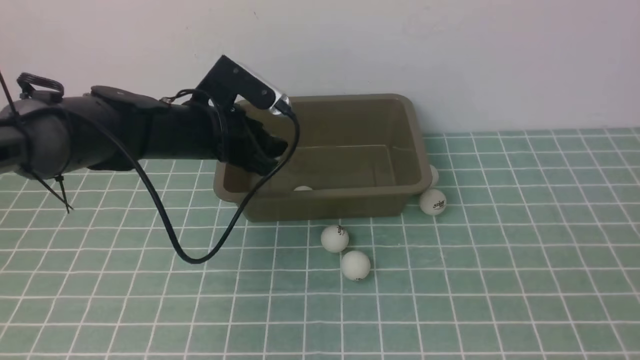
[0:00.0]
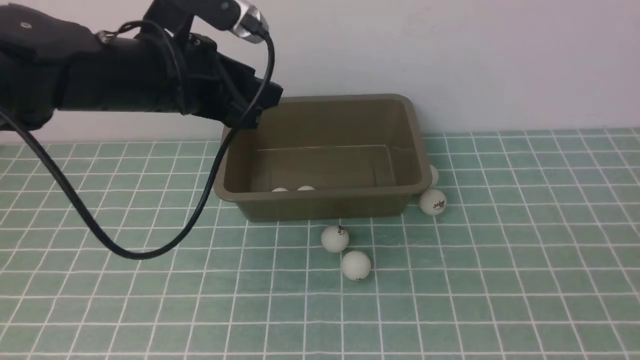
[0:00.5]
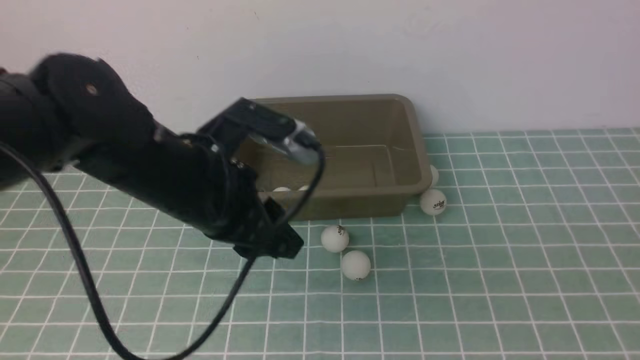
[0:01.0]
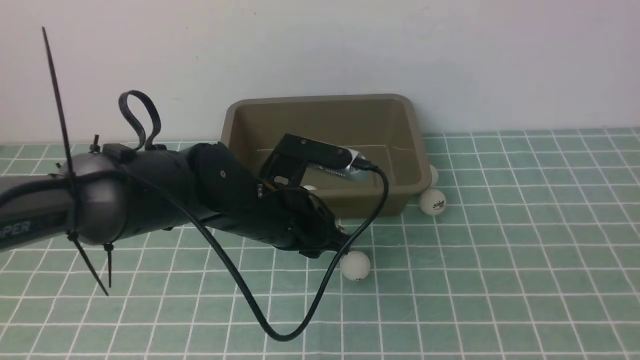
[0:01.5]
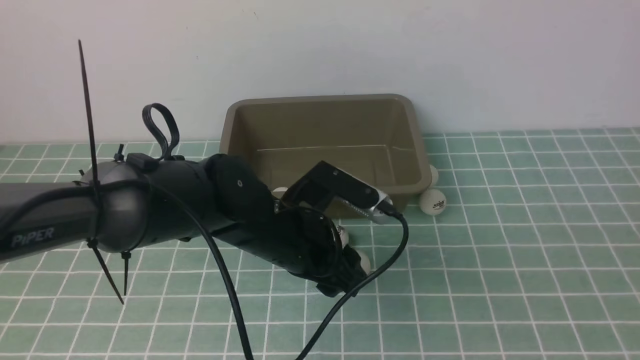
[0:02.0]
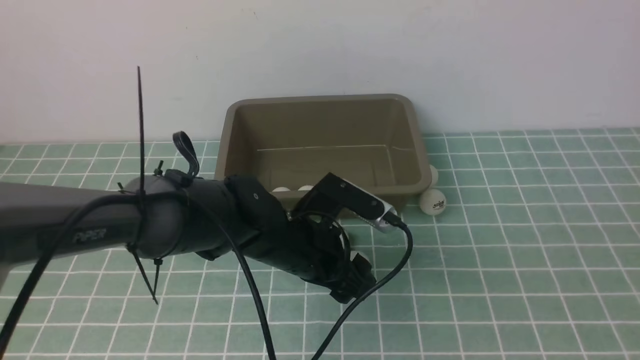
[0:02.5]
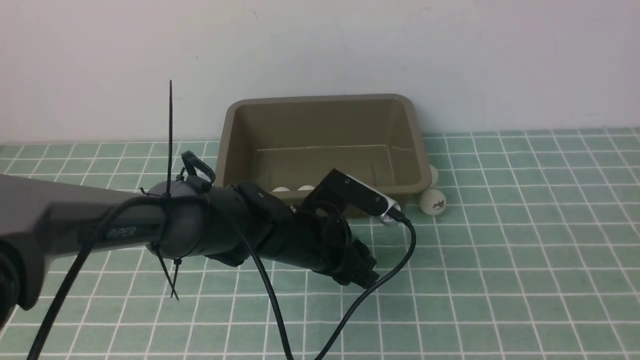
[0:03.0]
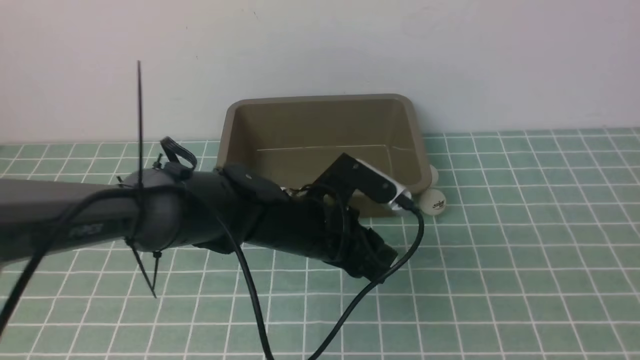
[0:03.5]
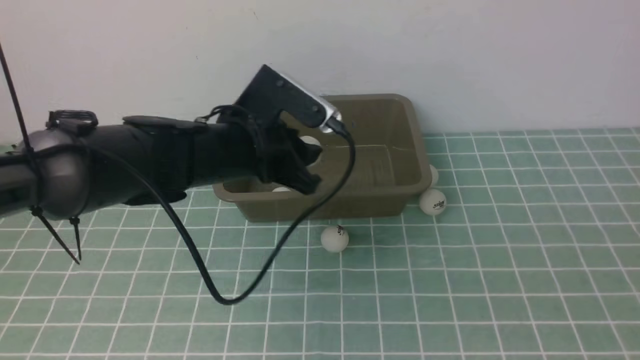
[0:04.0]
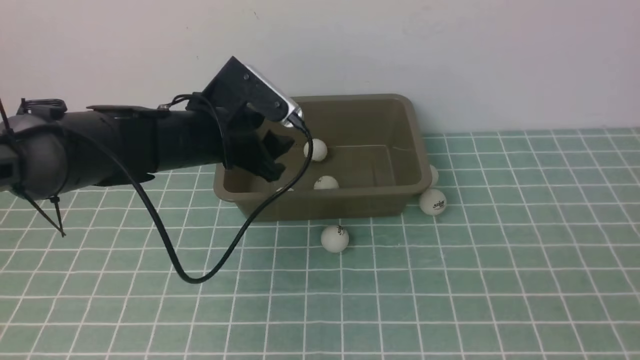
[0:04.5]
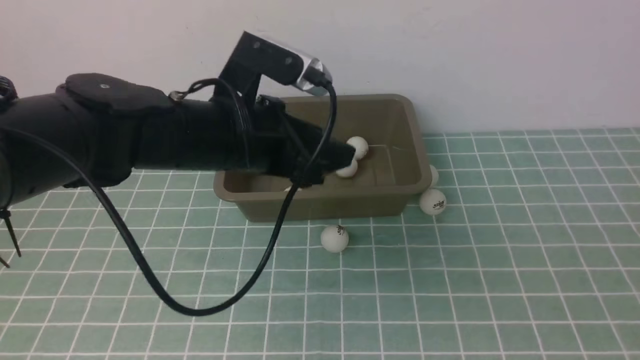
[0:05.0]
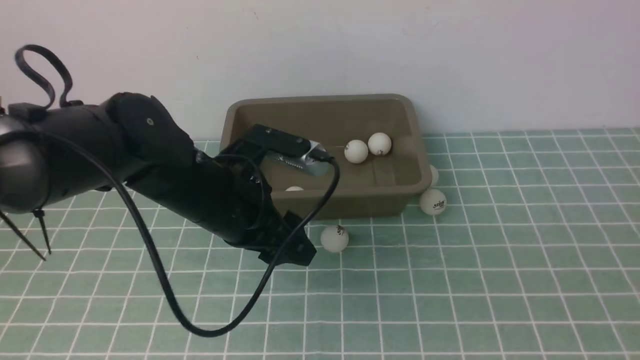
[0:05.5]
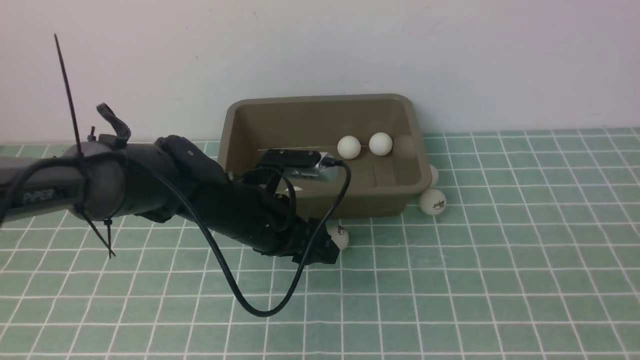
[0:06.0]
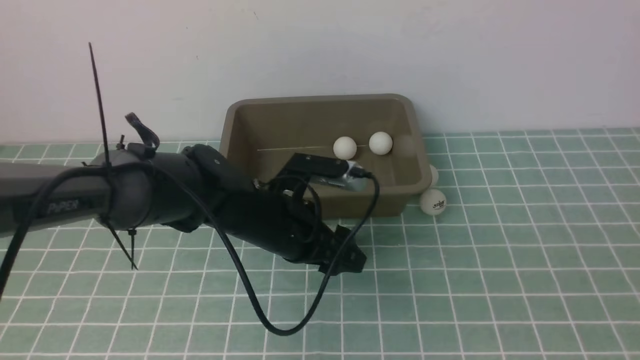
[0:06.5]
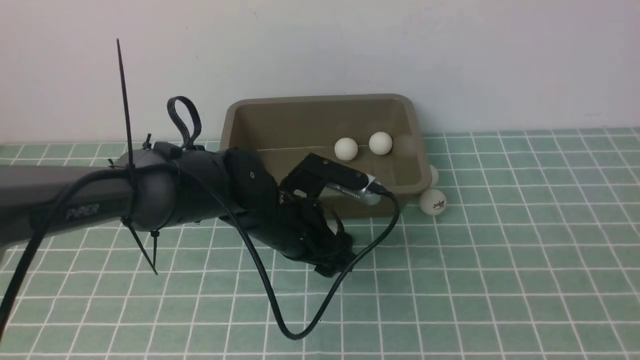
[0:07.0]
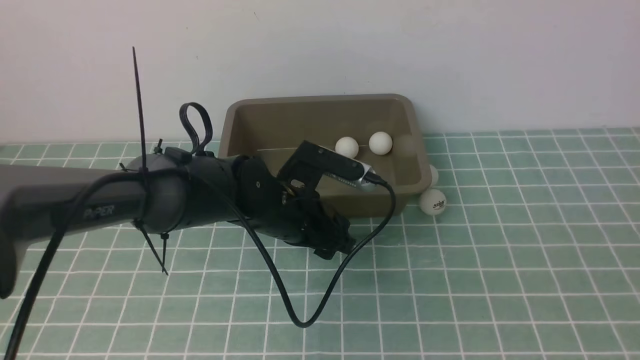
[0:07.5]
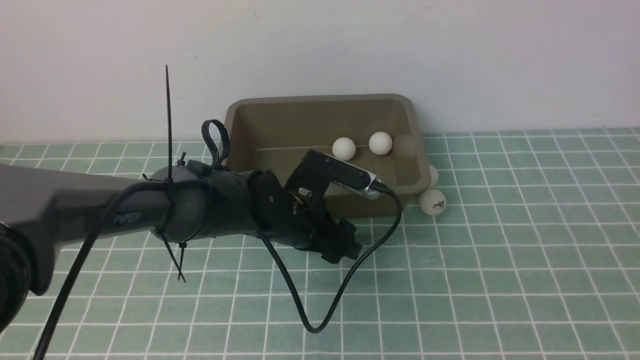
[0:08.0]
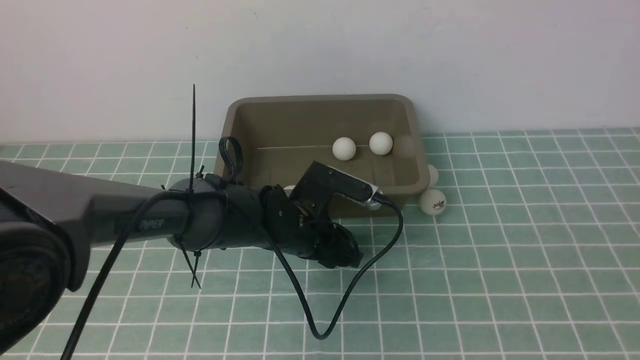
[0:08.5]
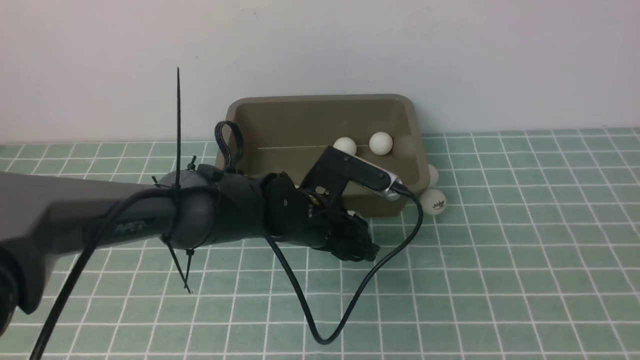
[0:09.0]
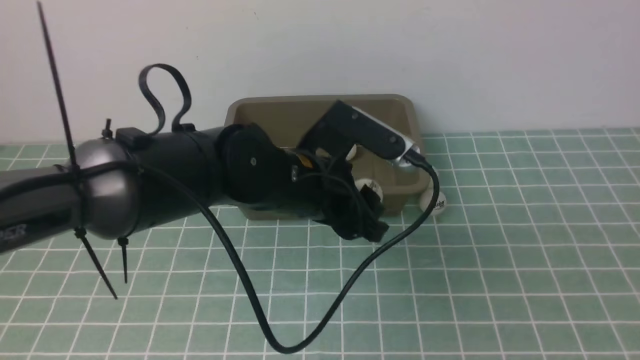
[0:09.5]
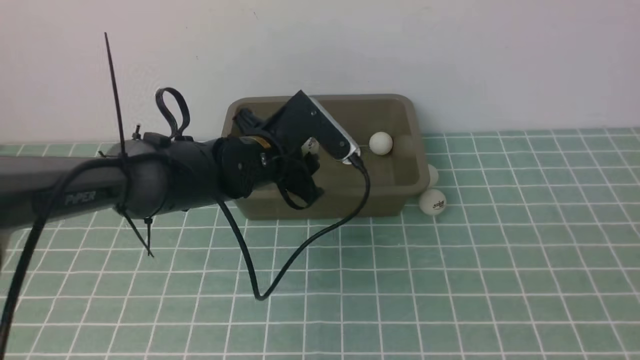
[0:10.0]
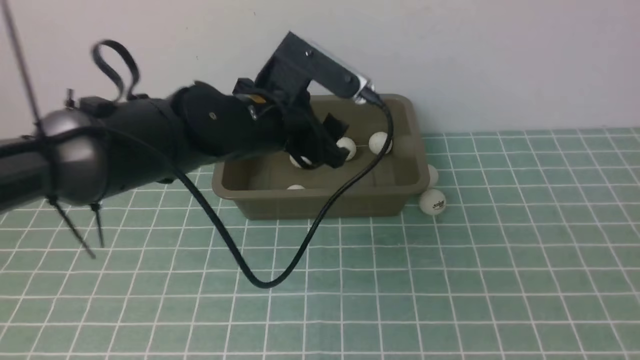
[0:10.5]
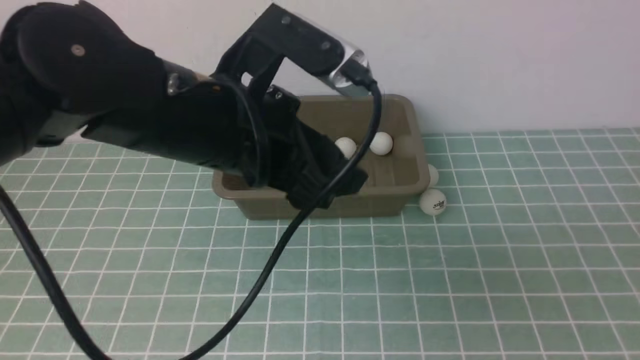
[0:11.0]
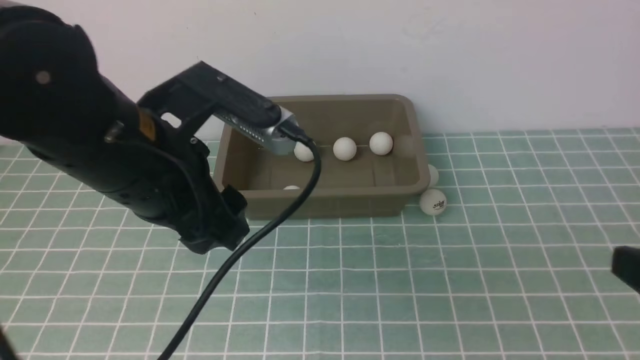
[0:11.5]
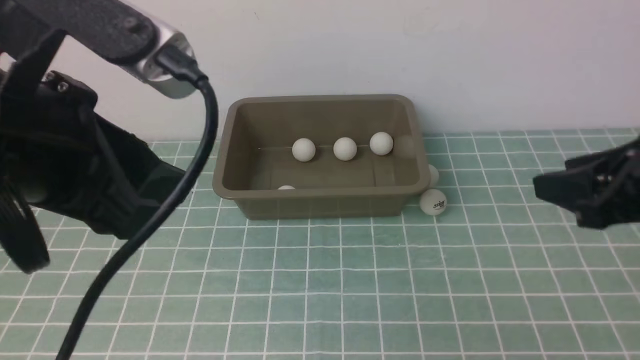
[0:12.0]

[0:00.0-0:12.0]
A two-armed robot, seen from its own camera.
Step, 0:00.5 to 0:03.0: use the left arm to clamp the table tennis ball closest to it.
Step, 0:03.5 to 0:04.5: use the left arm to put the table tennis ball into the box.
Step, 0:05.0 to 0:08.5: use the left arm to clamp the table tennis ball closest to it.
Step, 0:09.5 to 0:10.0: use the left arm to put the table tennis ball into the box.
0:00.0 to 0:02.0: The left gripper heads to the right, backward and downward, covering roughly 15 cm, and opens.
0:02.0 to 0:04.0: The left gripper travels to the left, forward and upward by about 15 cm, and closes.
0:04.0 to 0:06.0: The left gripper goes roughly 10 cm to the right, downward and backward, and opens up.
0:06.0 to 0:08.0: The grippers move only a little.
0:08.0 to 0:10.0: The left gripper moves upward, about 10 cm.
0:10.0 to 0:12.0: The right gripper shifts some 25 cm forward, while the left gripper is displaced backward, upward and to the left by approximately 30 cm.

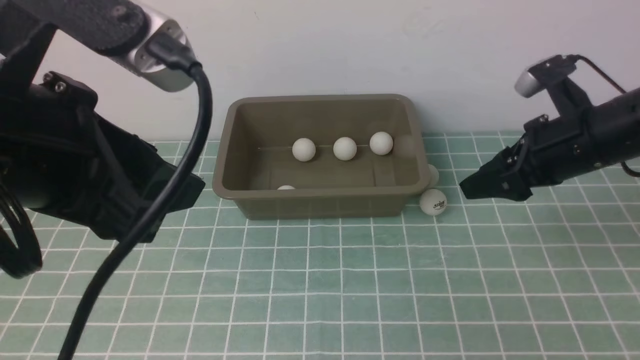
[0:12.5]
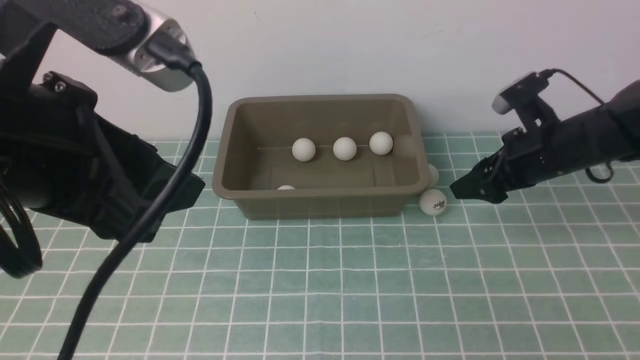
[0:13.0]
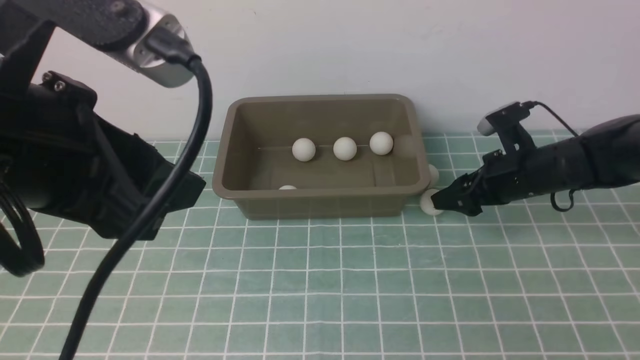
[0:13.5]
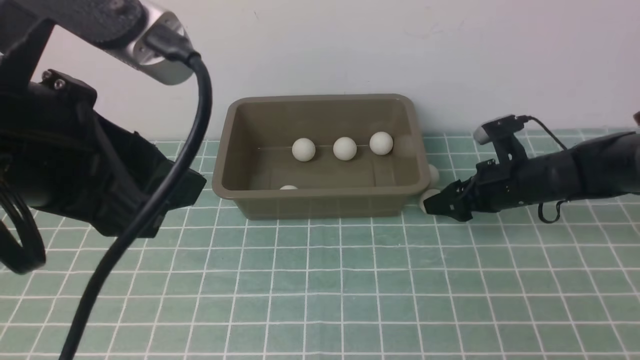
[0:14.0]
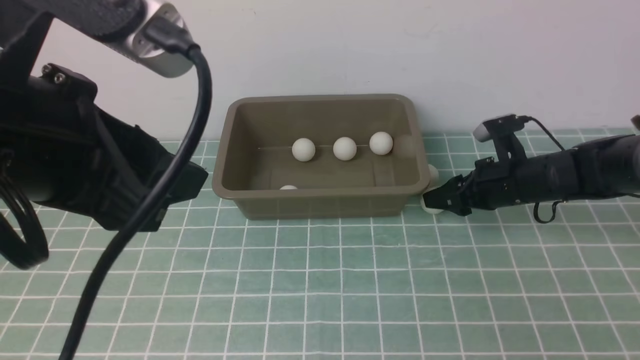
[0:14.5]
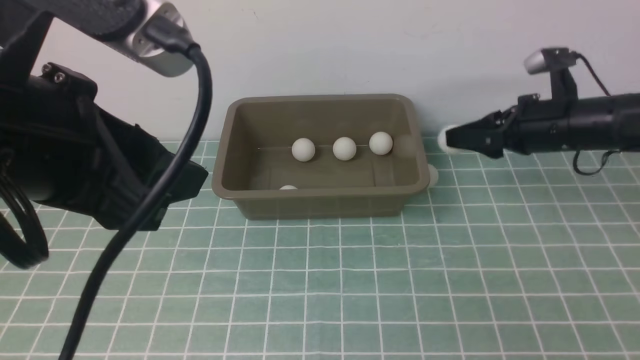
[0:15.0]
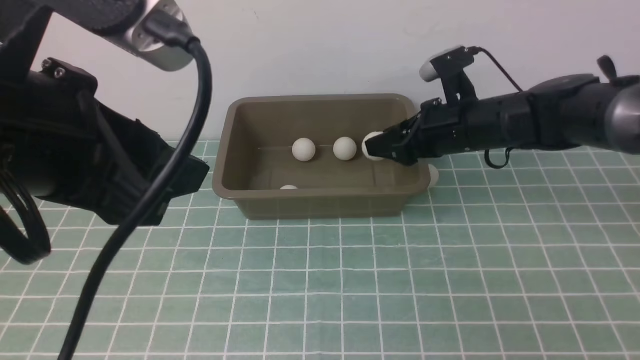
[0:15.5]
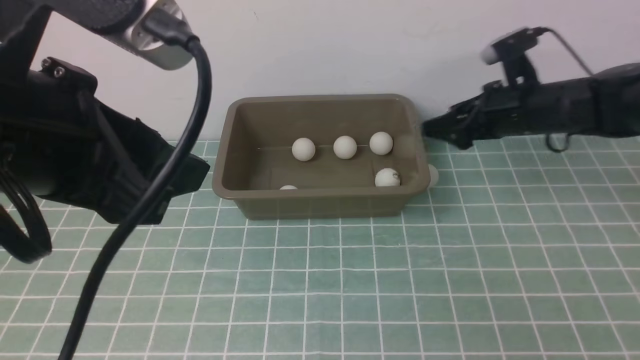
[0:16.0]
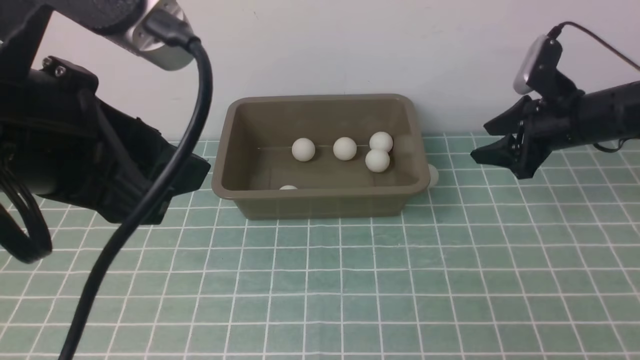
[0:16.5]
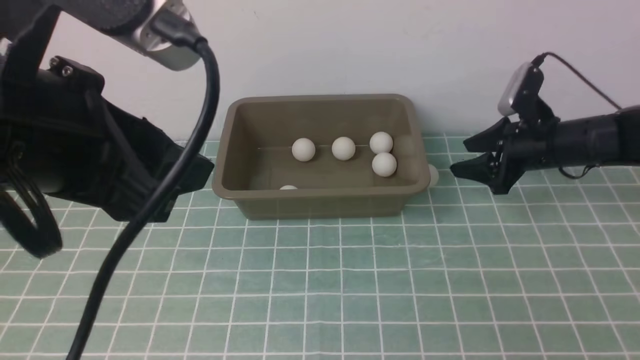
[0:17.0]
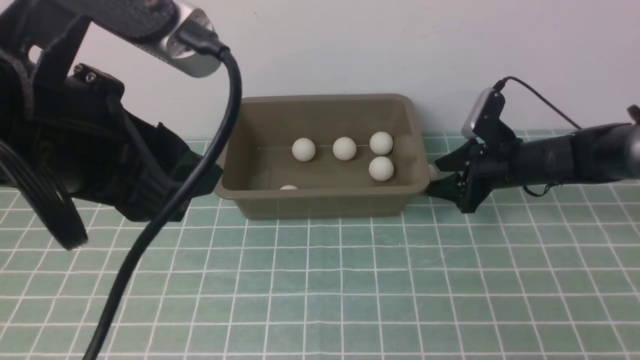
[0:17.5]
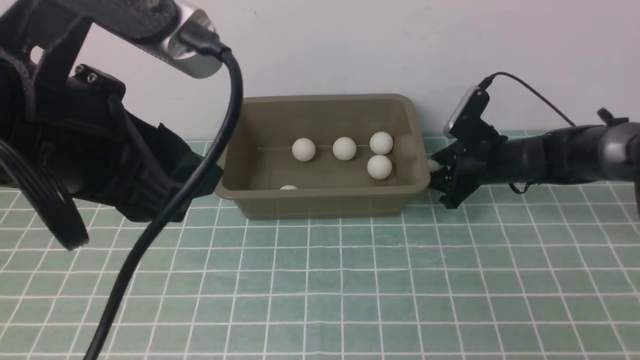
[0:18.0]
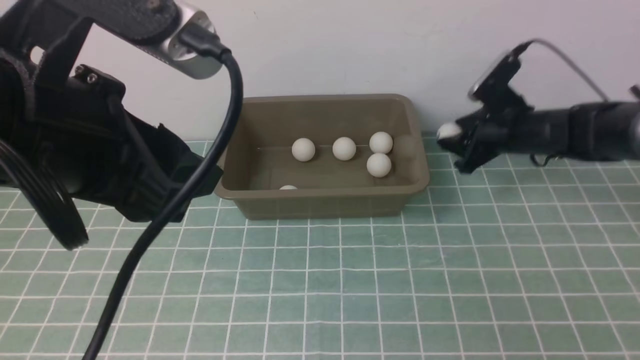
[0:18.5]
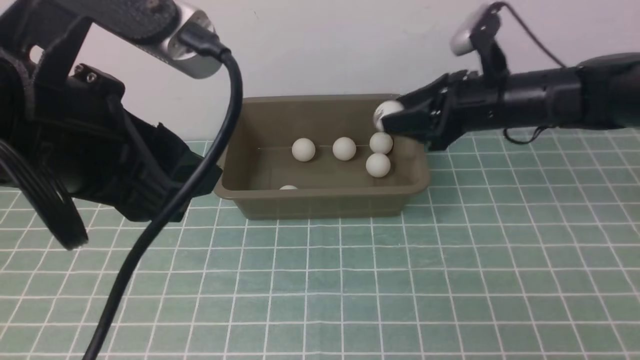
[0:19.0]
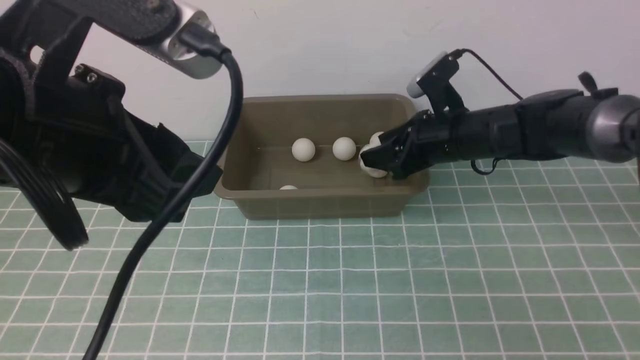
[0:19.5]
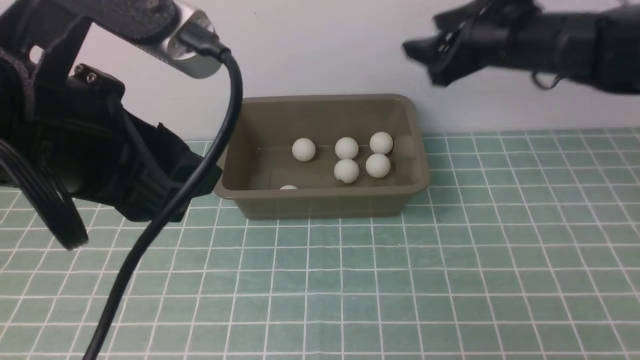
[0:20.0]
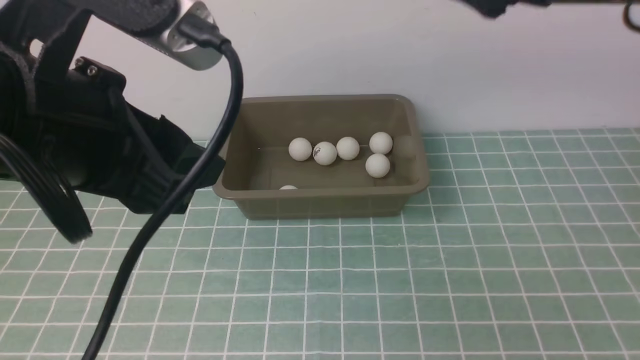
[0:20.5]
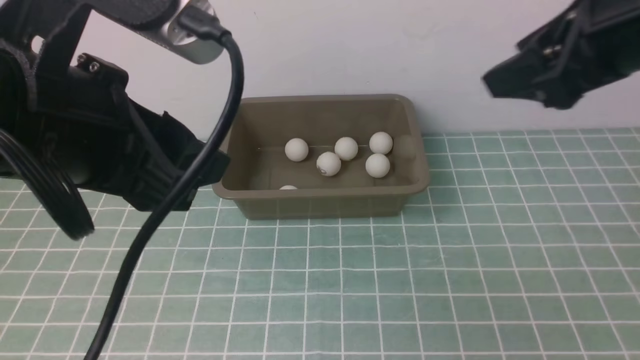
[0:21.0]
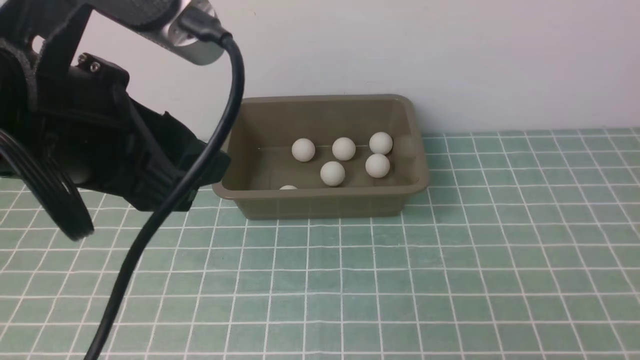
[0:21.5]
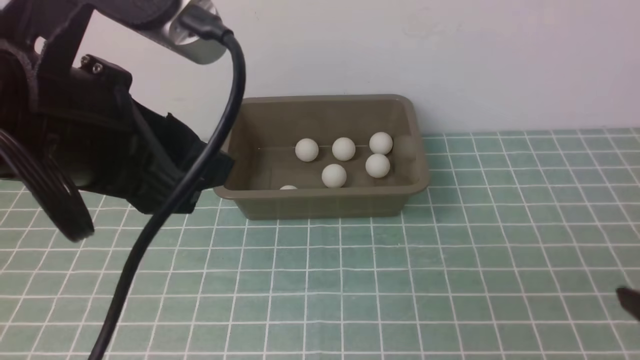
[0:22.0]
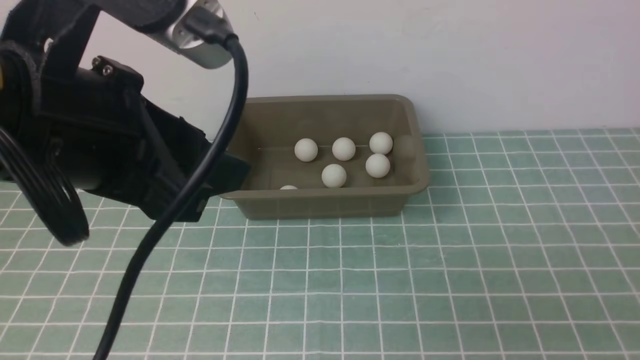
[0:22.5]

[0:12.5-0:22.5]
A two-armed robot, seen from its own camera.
Step, 0:12.5 to 0:14.5: use the right arm to clamp the table tennis ball closest to it.
Step, 0:15.0 to 0:15.5: use the right arm to put the table tennis ball into the box.
Step, 0:16.0 to 0:18.5: use the right arm to clamp the table tennis ball closest to it.
Step, 0:19.0 to 0:19.5: use the right arm to put the table tennis ball into the box.
0:12.5 to 0:14.5: The right gripper goes roughly 10 cm downward and forward, and closes its fingers.
0:14.5 to 0:16.5: The right gripper goes to the left and returns, approximately 5 cm each way, and opens.
0:16.5 to 0:18.5: The right gripper closes up.
0:18.5 to 0:20.5: The right gripper goes about 30 cm upward and backward, and opens up.
0:20.5 to 0:22.5: The right gripper shifts about 30 cm backward and downward, and closes its fingers.
